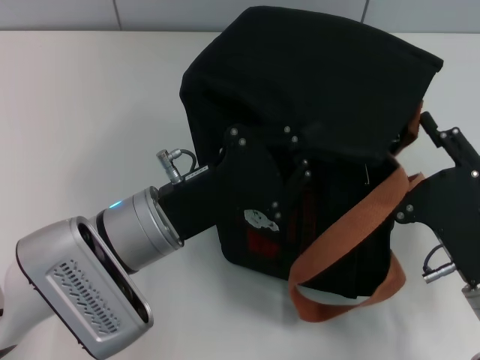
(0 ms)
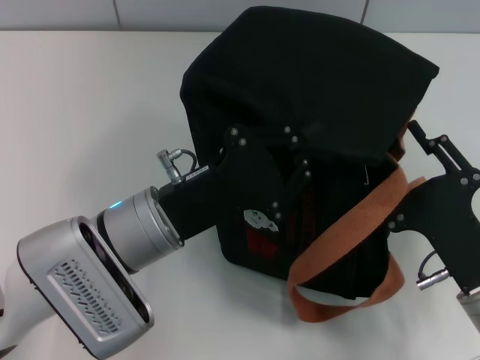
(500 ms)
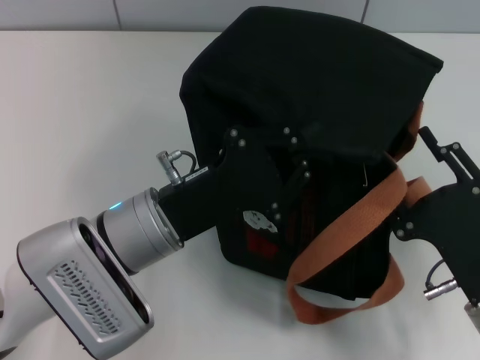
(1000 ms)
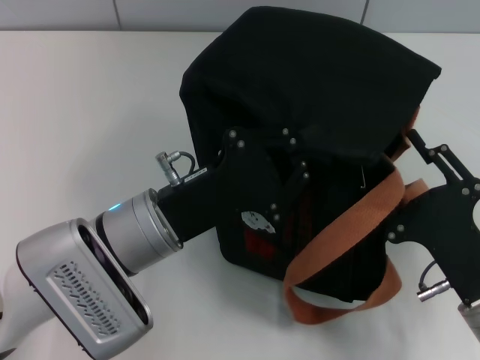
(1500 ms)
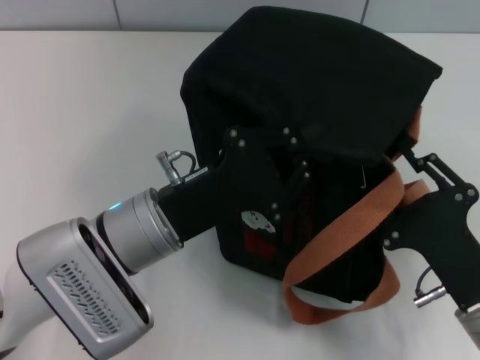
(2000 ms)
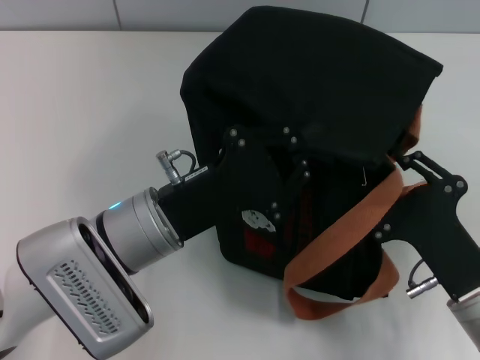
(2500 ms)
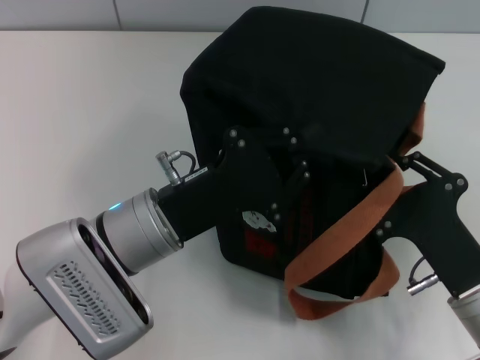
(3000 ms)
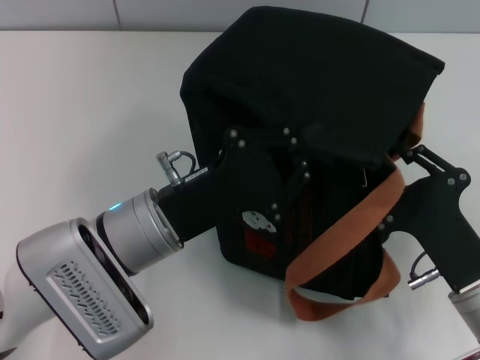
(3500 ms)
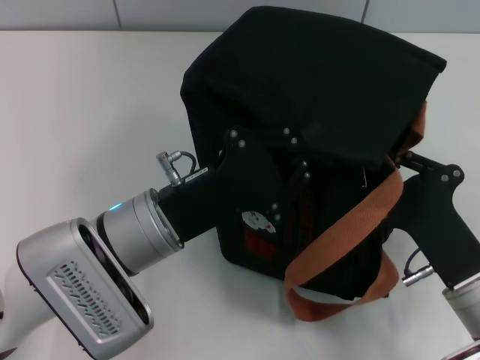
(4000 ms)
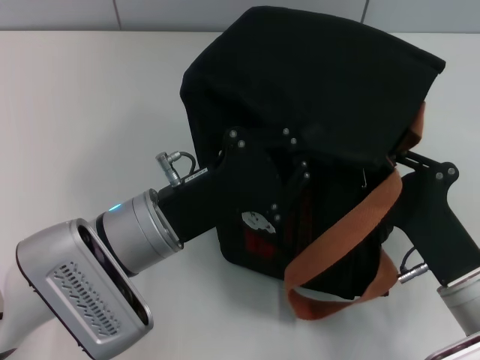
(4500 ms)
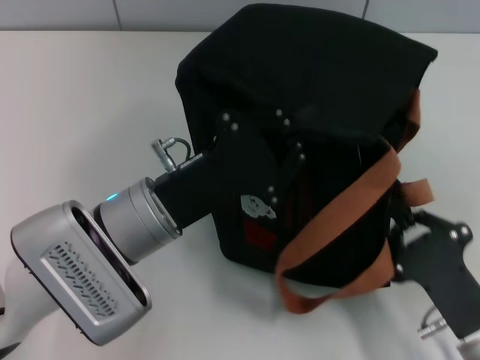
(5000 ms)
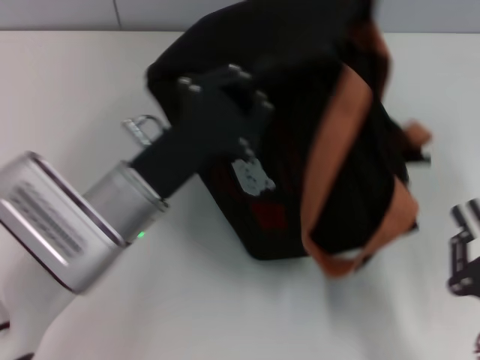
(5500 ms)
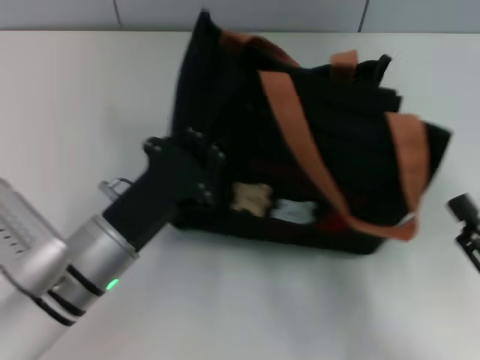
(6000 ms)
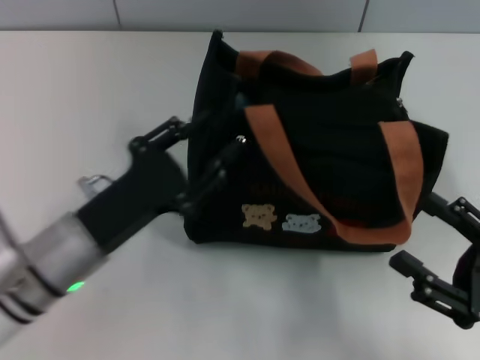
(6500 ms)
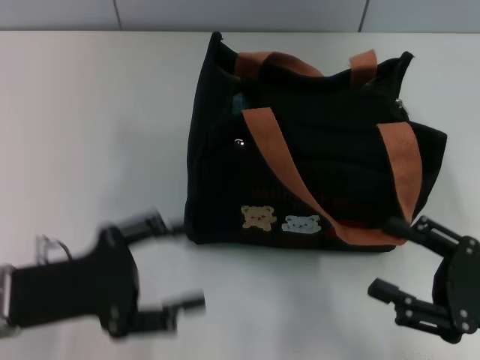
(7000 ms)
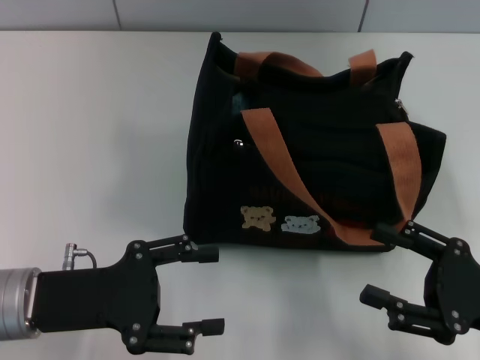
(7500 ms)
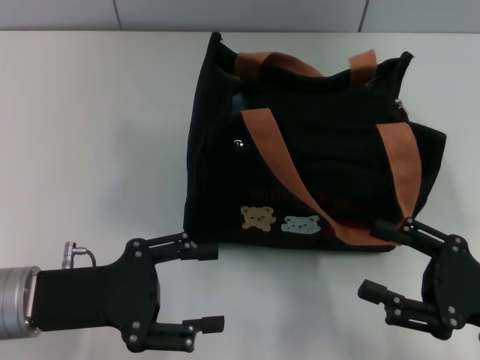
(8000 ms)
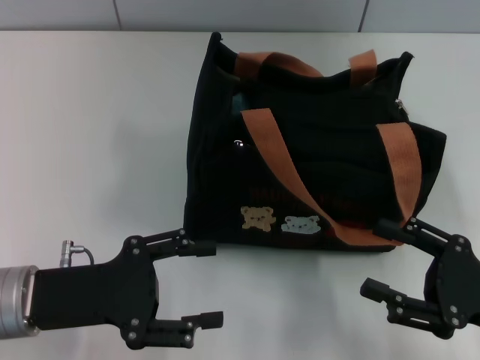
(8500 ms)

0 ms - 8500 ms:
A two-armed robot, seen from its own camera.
Step, 0 ms - 5000 ms: Pull open the zipper with your right hand.
Step, 5500 ms - 6500 ms: Grab the bag with your left hand.
0 ms - 4000 ms: The grippers move only a little.
4000 ms - 6500 ms: The right gripper moves to the right, about 10 cm, and opens up. The left gripper shifts about 5 cm to the left, and opens its fingers.
6500 ms - 8500 ms: The left gripper moves to the left, roughly 5 cm, and opens its fingers.
